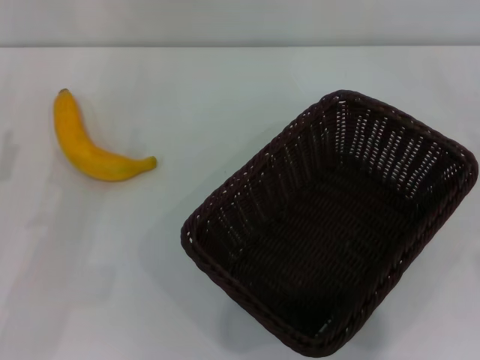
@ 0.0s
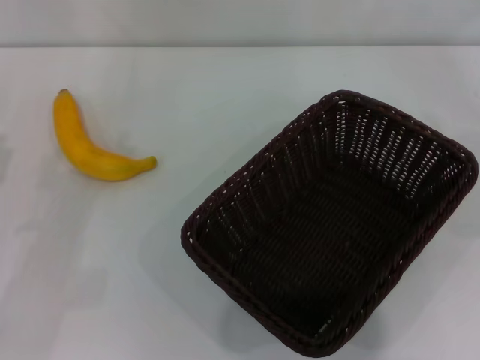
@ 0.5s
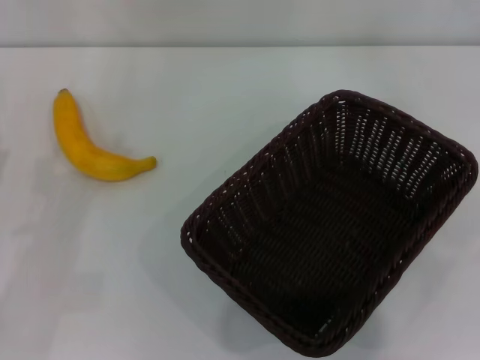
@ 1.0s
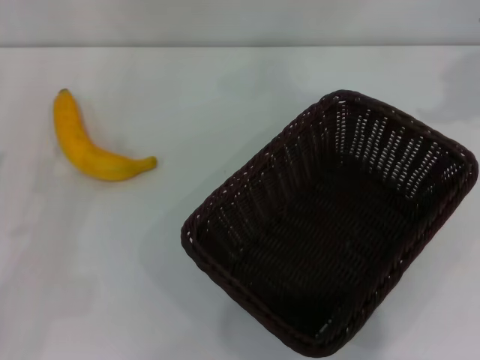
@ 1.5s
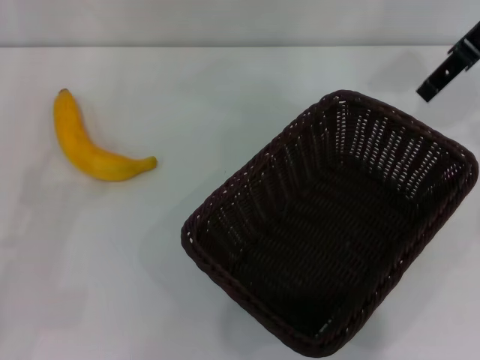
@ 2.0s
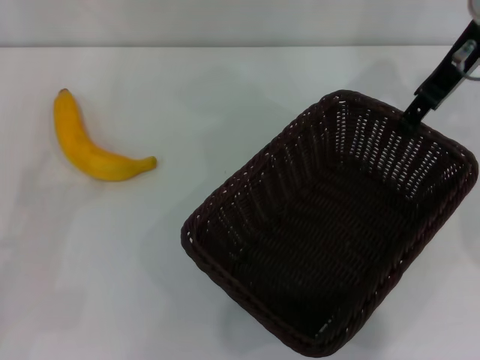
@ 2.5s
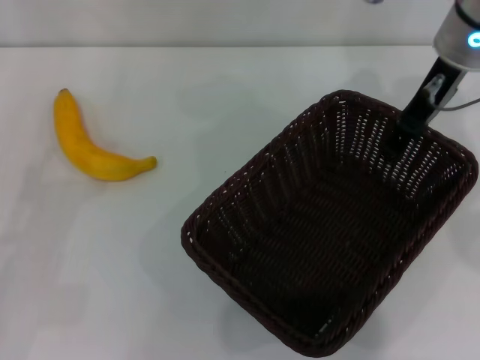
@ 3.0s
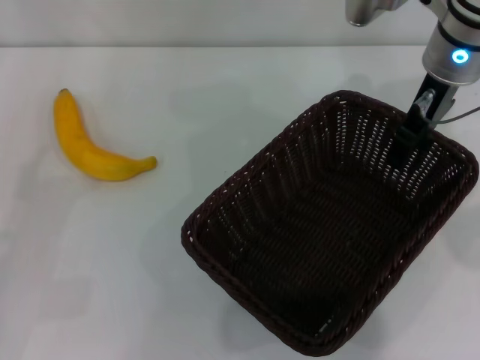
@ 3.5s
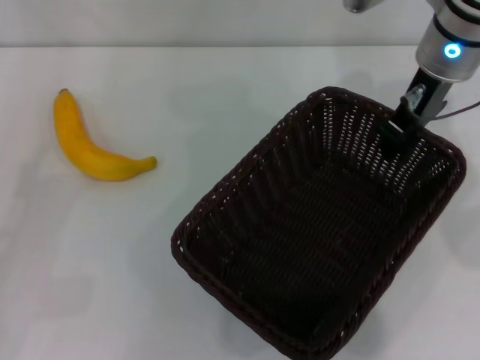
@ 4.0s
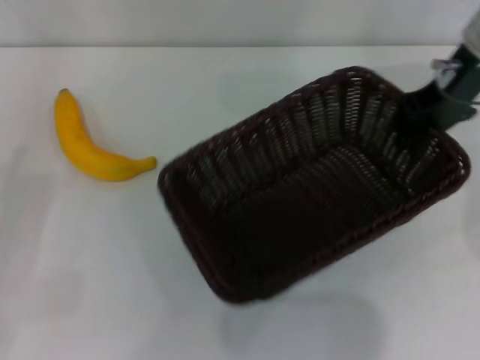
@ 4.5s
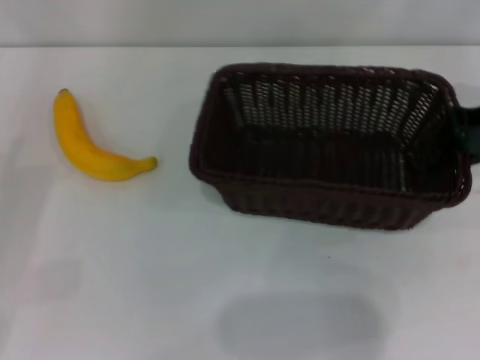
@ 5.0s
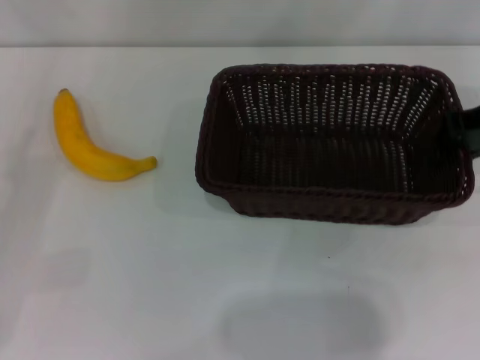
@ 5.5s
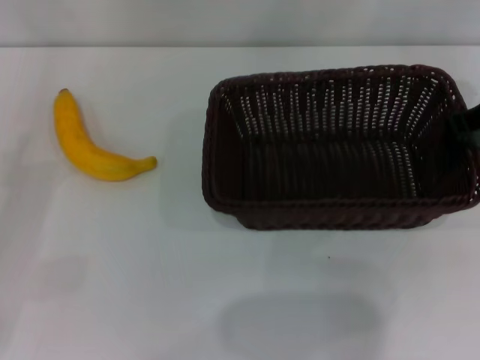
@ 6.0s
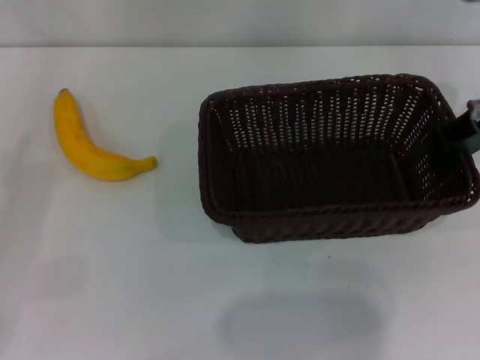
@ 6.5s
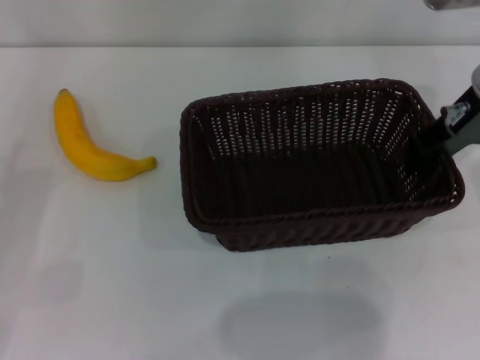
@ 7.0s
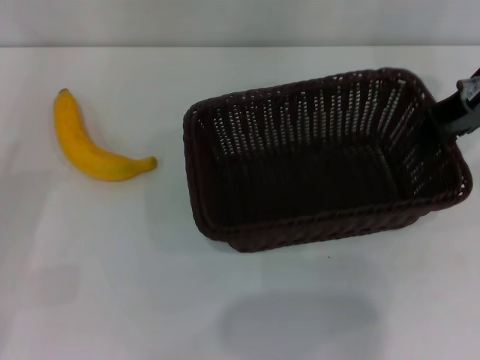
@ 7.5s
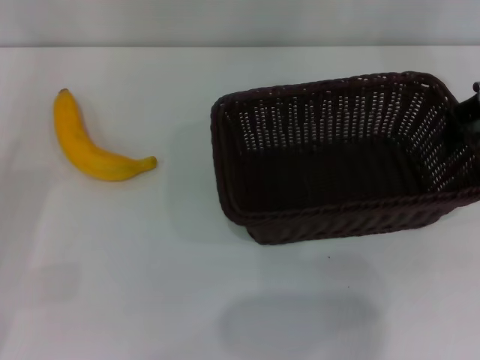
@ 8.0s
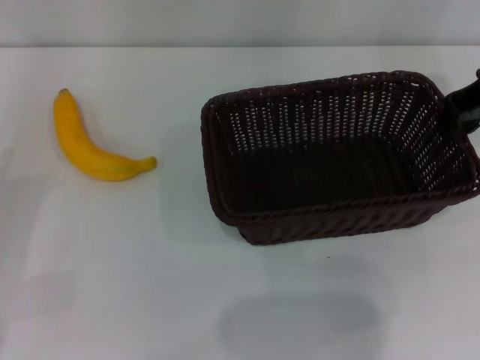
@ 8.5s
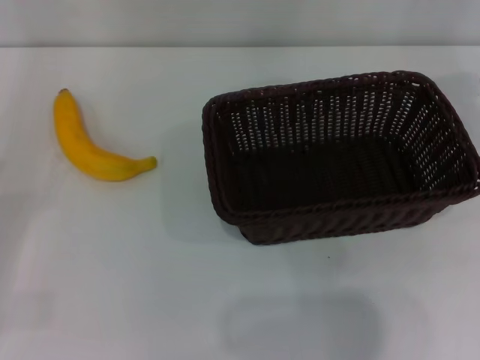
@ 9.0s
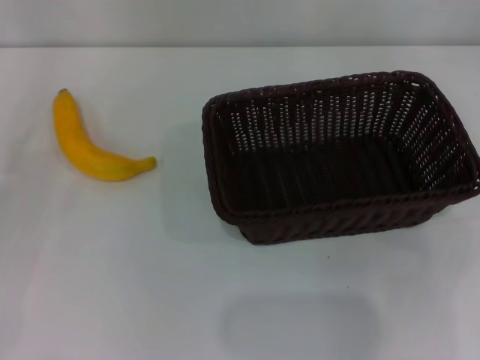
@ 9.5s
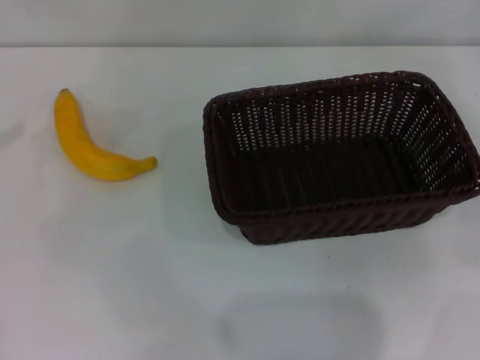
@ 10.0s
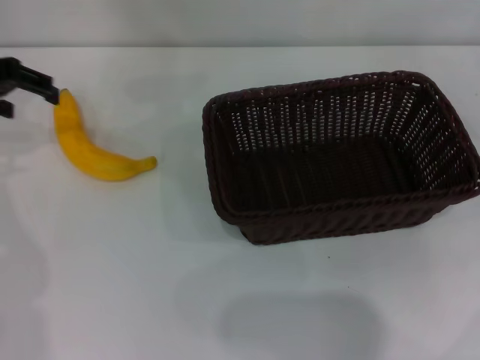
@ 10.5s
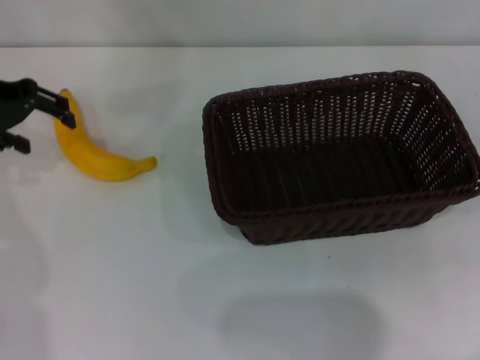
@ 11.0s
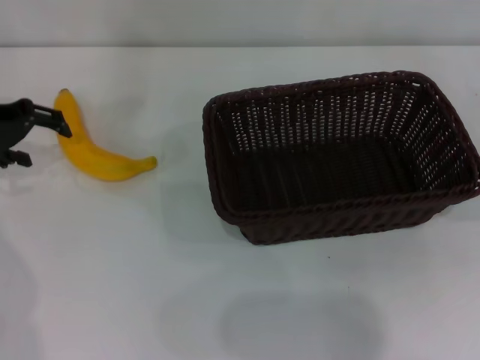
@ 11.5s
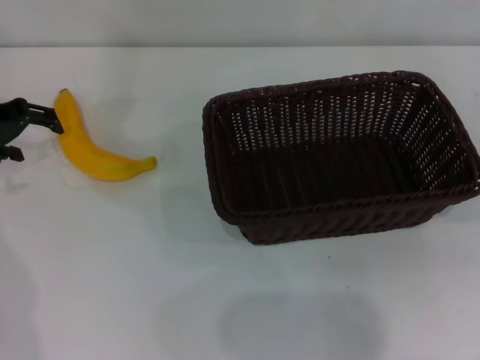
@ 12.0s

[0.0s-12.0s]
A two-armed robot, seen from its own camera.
Step, 0.0s to 4.5s: Pick up the dark basket with the right gripper.
Step, 5.0s to 9.5s: Place the dark basket in the center of view with the right gripper.
0.0s to 2.0s: The right gripper travels upward, to the left and forward by roughly 35 cm.
2.0s to 4.0s: The right gripper is displaced downward and to the left by some 10 cm, and closes.
4.0s to 6.0s: The right gripper shifts some 10 cm to the right.
6.0s to 8.0s: The grippers move only a little.
8.0s to 10.0s: The right gripper is displaced to the right by some 20 cm, and opens up, while the left gripper moves upward and forward, some 15 cm.
10.0s to 12.0s: The left gripper travels to the right, downward and forward by roughly 10 cm.

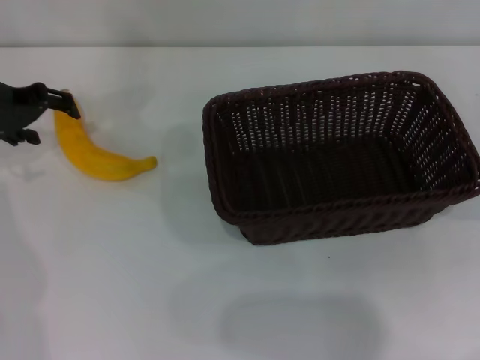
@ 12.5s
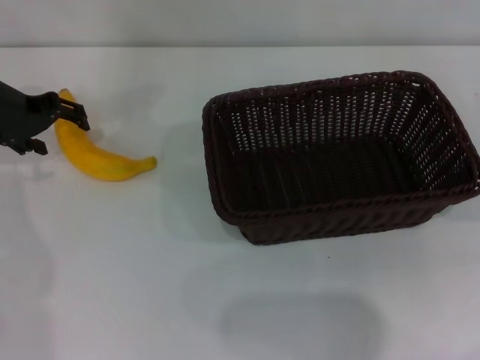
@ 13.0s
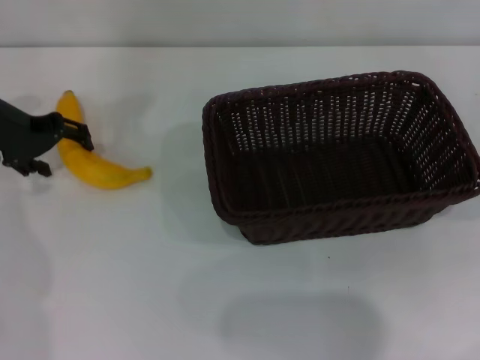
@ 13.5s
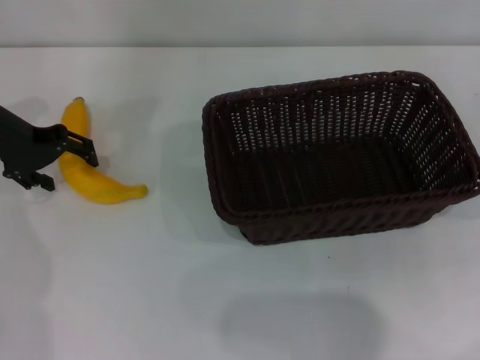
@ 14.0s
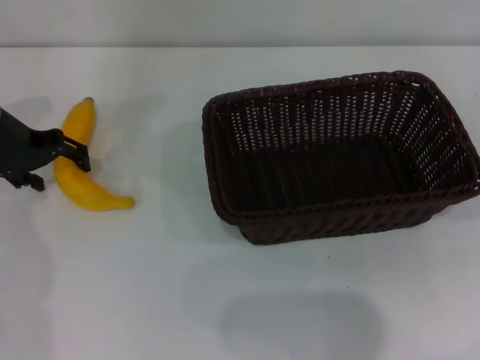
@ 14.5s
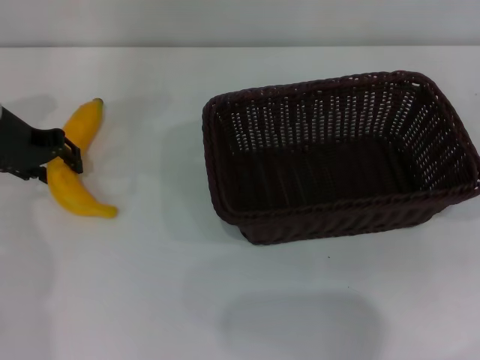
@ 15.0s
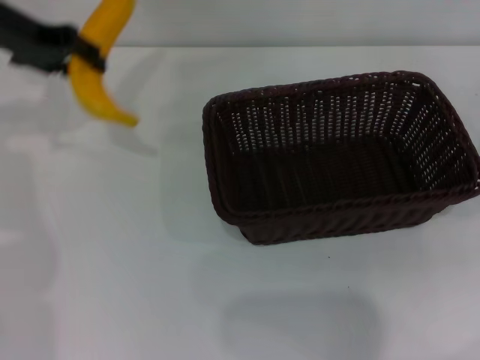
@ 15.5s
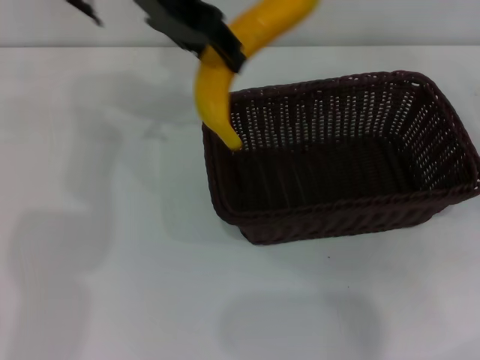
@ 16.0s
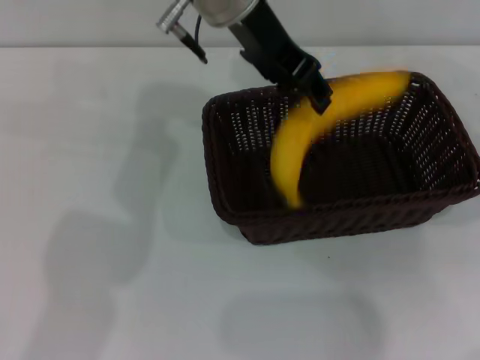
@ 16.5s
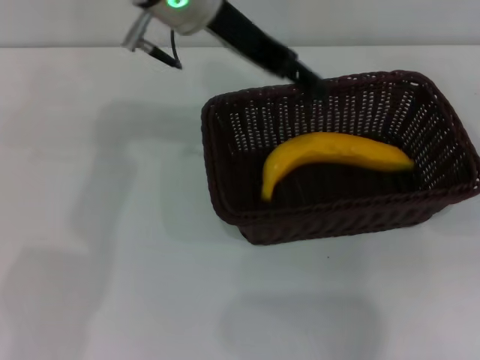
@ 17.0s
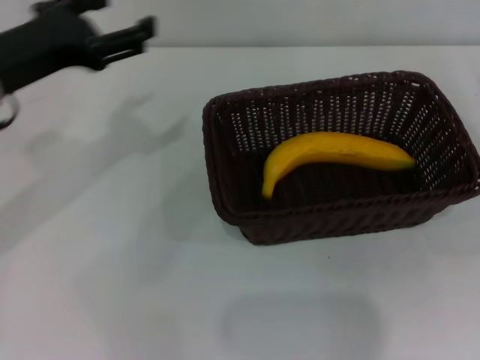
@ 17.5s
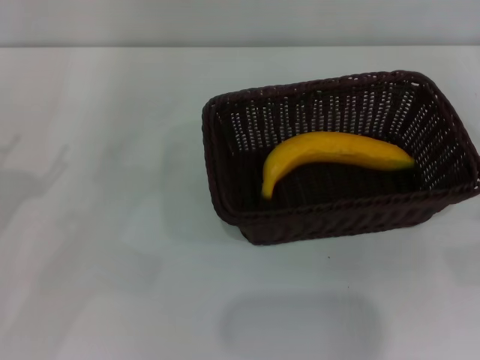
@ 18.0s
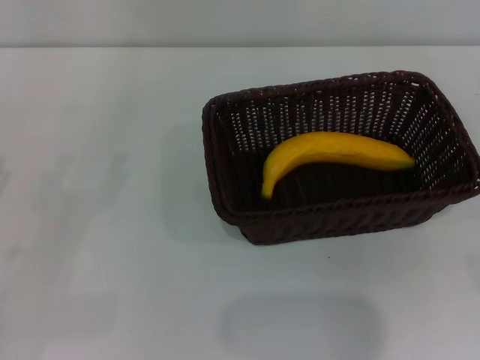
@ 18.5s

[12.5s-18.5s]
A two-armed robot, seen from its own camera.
Step, 12.5s to 15.0s: Pick up the banana with the left gripper.
Step, 15.5s to 17.0s: Place the banana into the dark basket with the left gripper.
12.5s to 14.5s: There are only small adjustments of the grippers.
14.5s to 16.5s: The left gripper travels to the right and upward by some 30 cm, and closes.
16.5s to 18.5s: The right gripper heads backward, covering about 10 cm, and opens. Meanwhile the left gripper shifts about 40 cm to the left, backward and downward, and opens its fingers.
